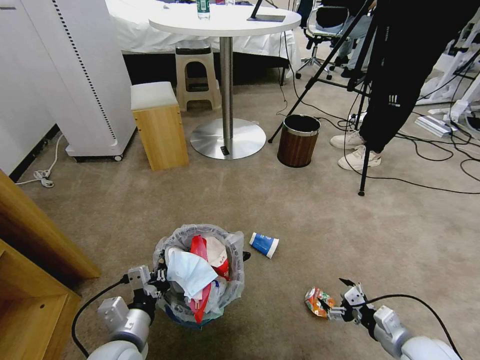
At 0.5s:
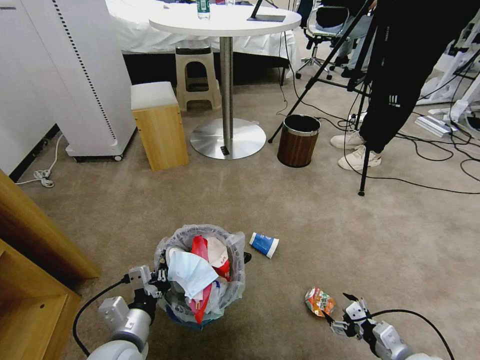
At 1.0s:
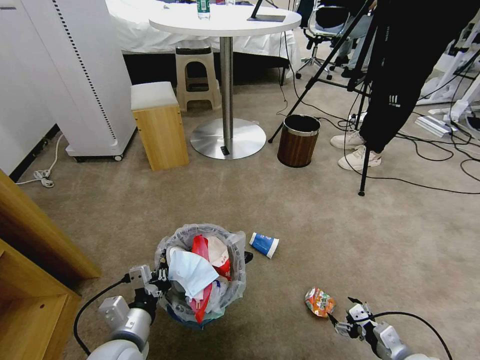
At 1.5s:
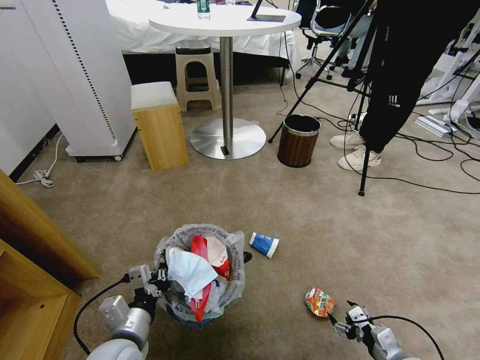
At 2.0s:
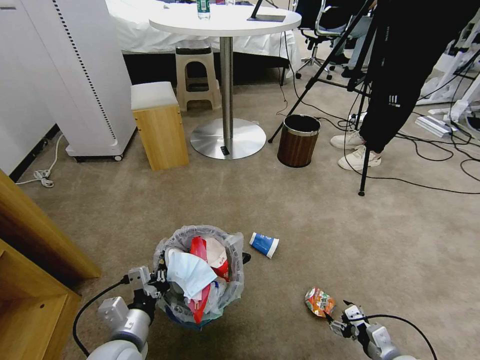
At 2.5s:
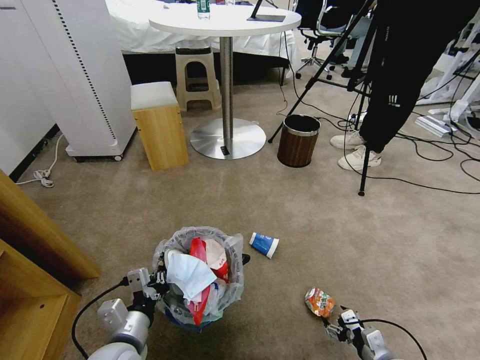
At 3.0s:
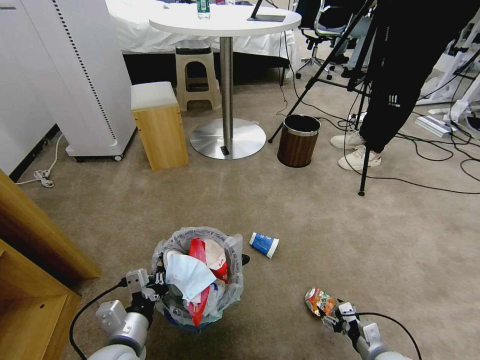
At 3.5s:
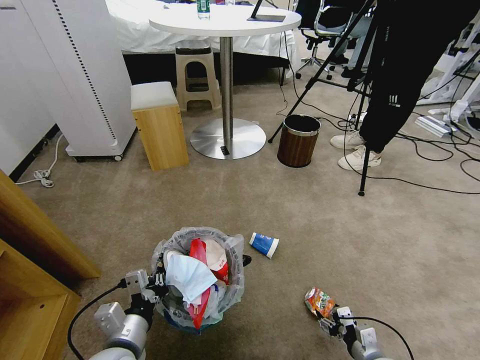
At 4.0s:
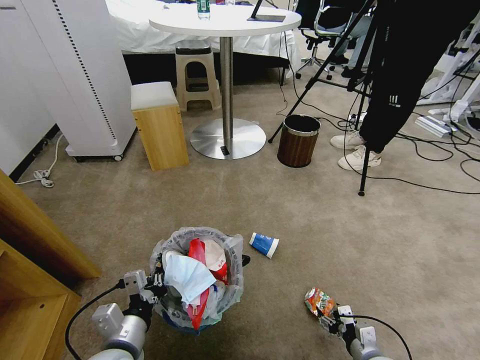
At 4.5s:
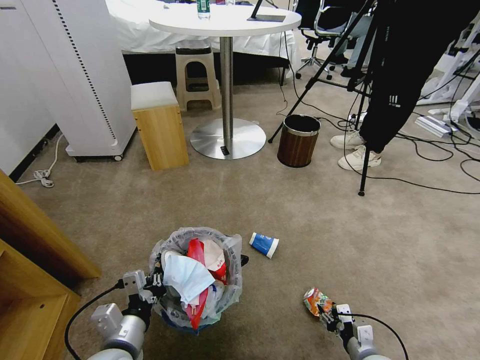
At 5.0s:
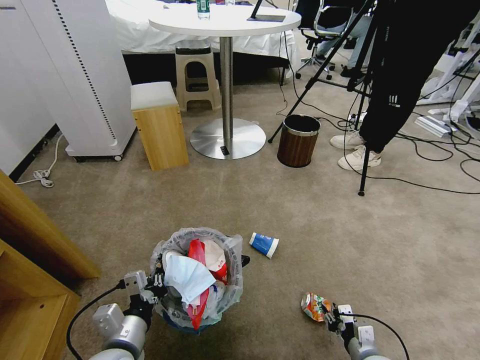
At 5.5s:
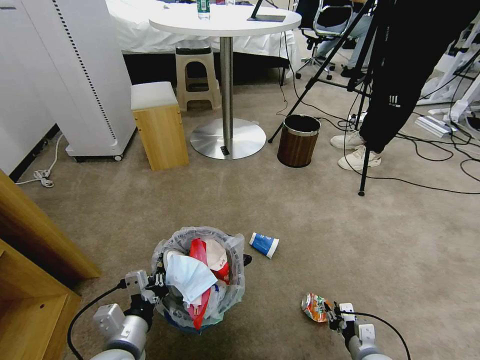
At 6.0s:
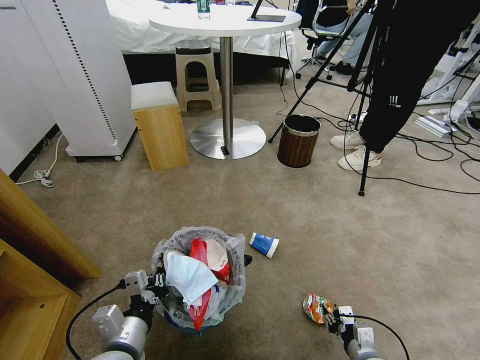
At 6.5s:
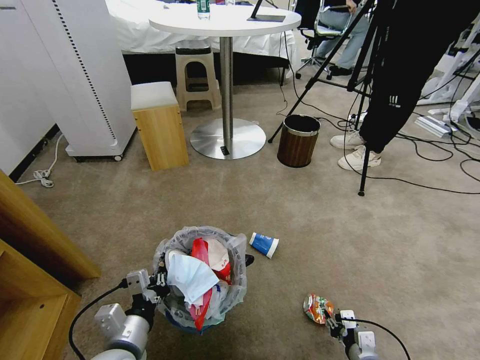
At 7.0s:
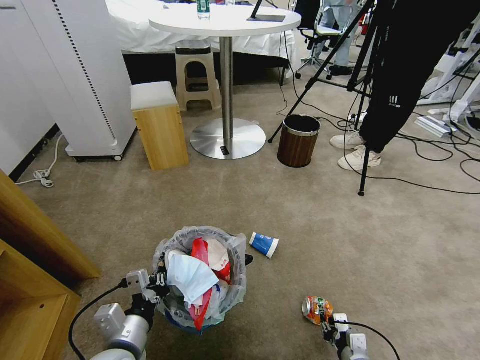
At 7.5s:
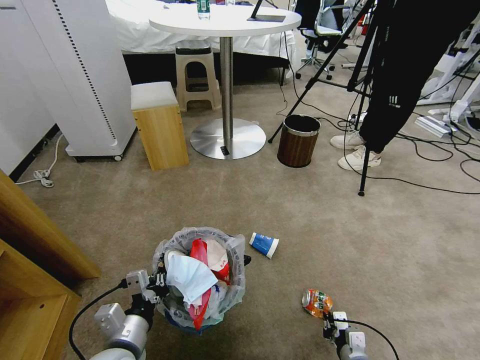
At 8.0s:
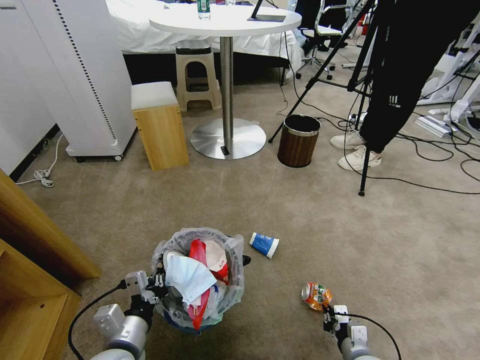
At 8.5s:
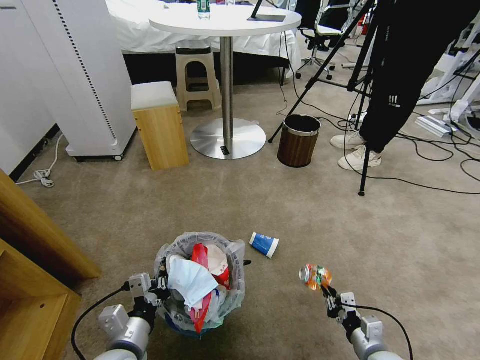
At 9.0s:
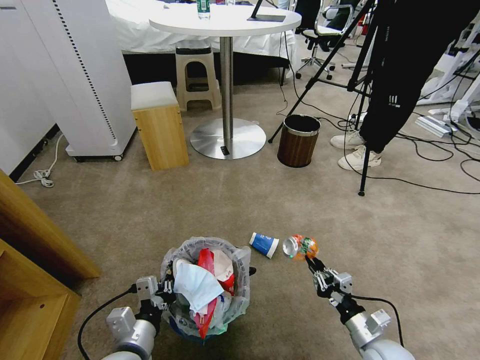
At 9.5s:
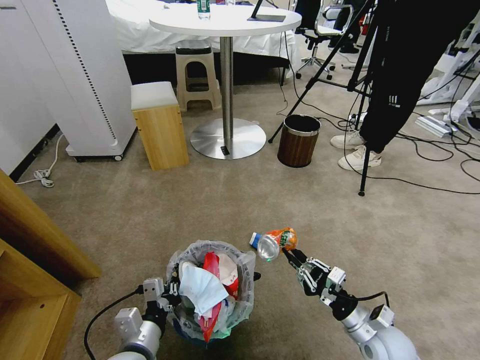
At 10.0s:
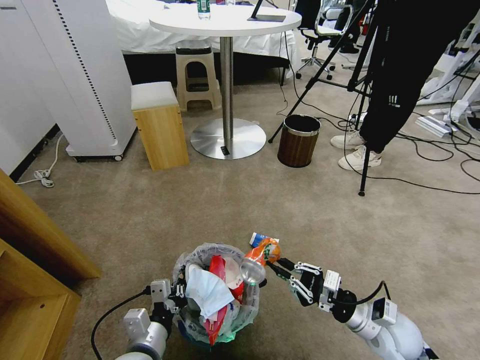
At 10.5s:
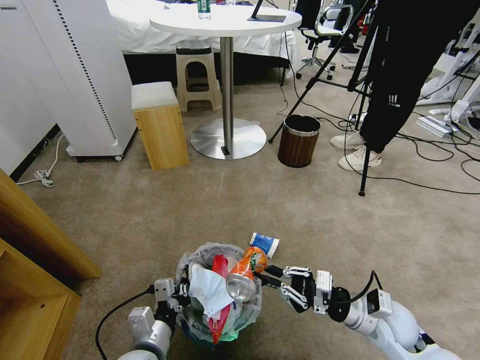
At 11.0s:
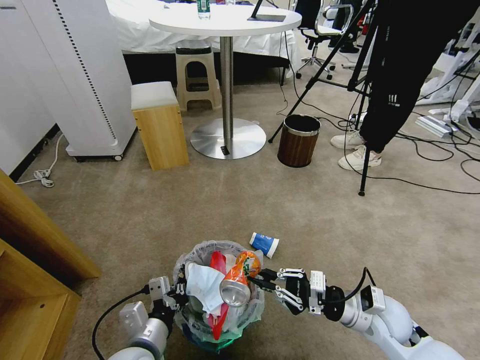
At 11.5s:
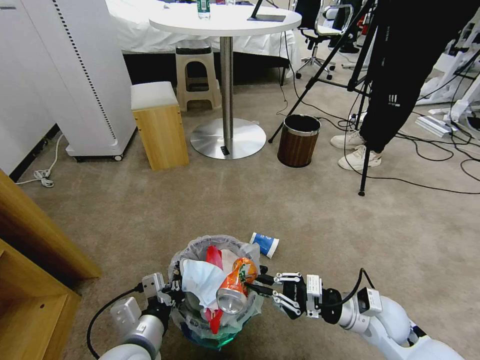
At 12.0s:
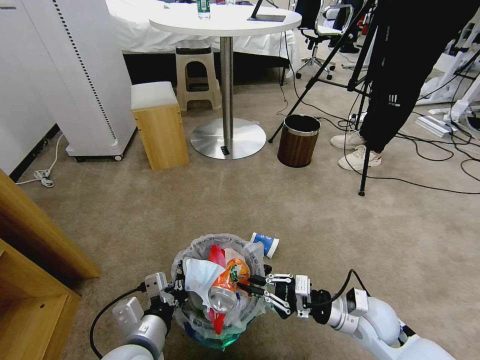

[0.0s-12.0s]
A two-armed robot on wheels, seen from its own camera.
Task of the whole recording: Pick up the trash bin and place the garbage on the floor into it.
0.0s to 2.0s: The right gripper shifts approximately 10 cm downward.
2.0s to 4.0s: The right gripper ends up about 5 cm from where it was.
4.0s to 8.0s: The grippers move only a little.
8.0s to 10.0s: The right gripper heads upward and forward, covering approximately 15 cm.
10.0s to 12.0s: The left gripper moves upward, roughly 5 cm.

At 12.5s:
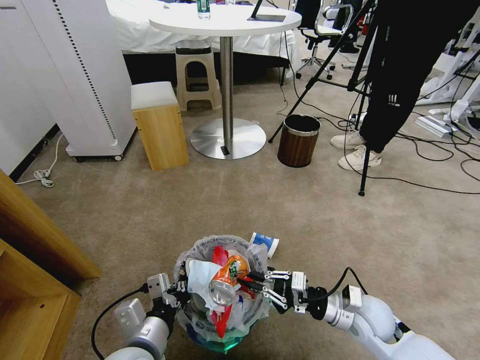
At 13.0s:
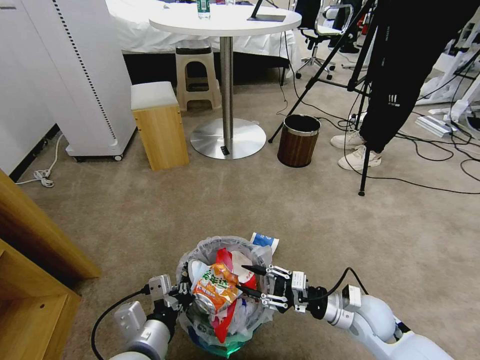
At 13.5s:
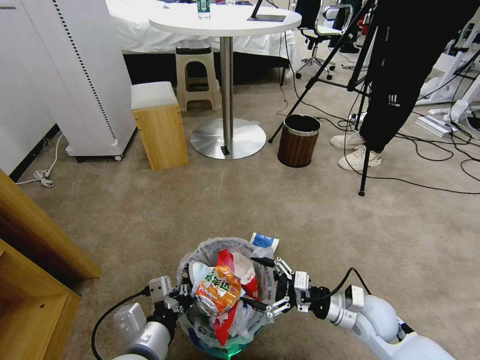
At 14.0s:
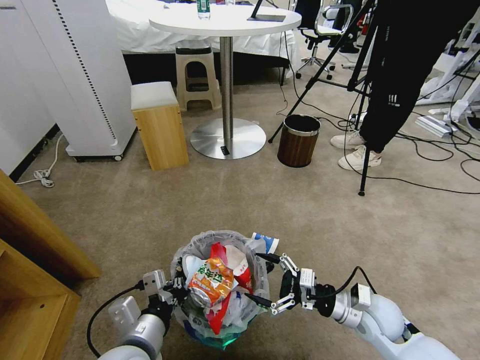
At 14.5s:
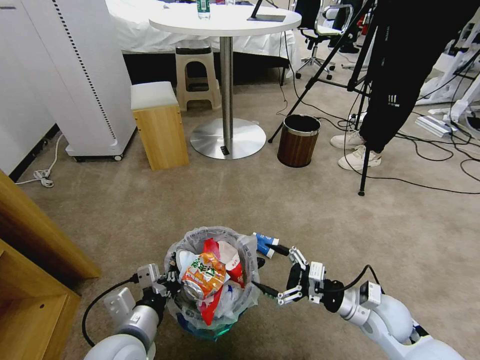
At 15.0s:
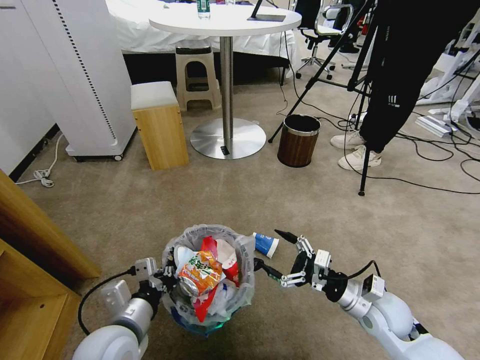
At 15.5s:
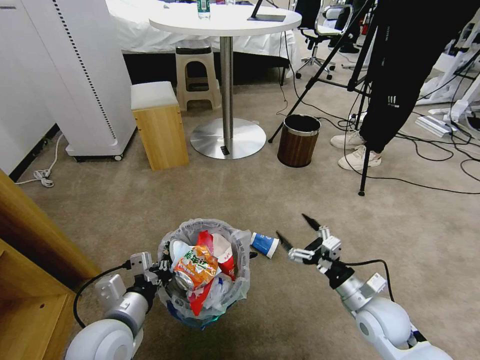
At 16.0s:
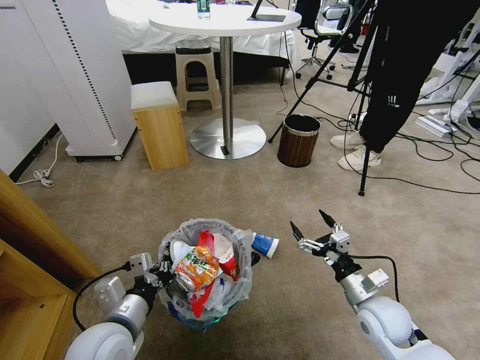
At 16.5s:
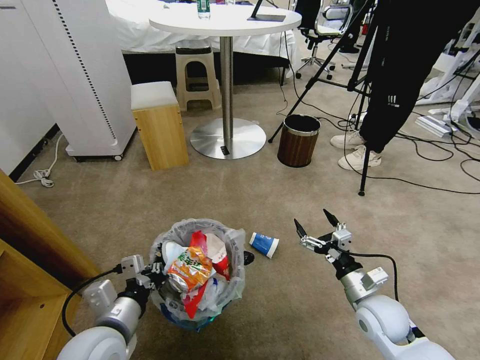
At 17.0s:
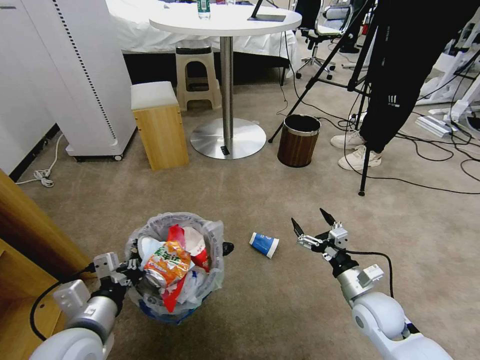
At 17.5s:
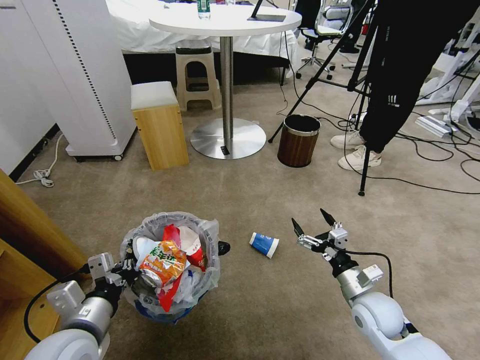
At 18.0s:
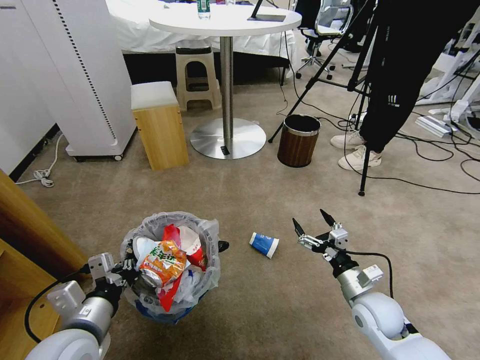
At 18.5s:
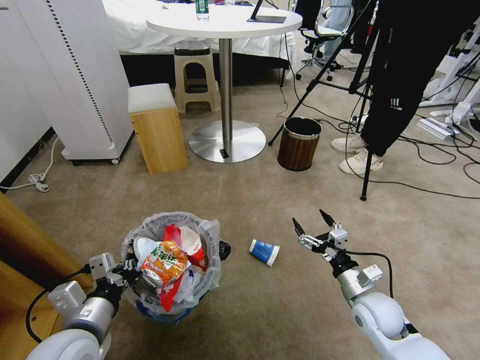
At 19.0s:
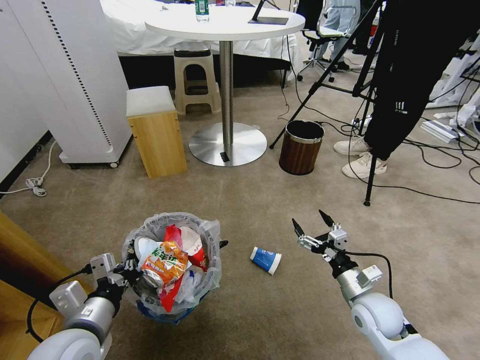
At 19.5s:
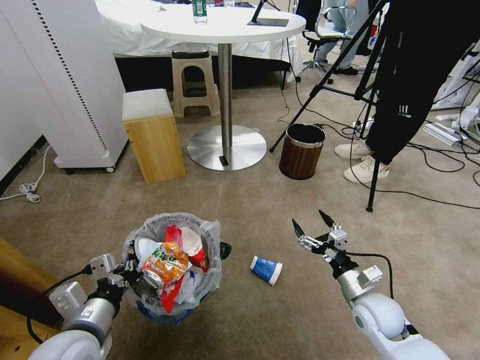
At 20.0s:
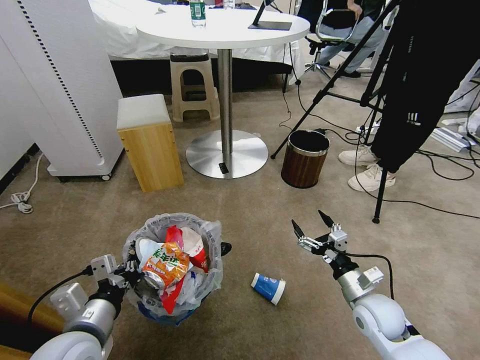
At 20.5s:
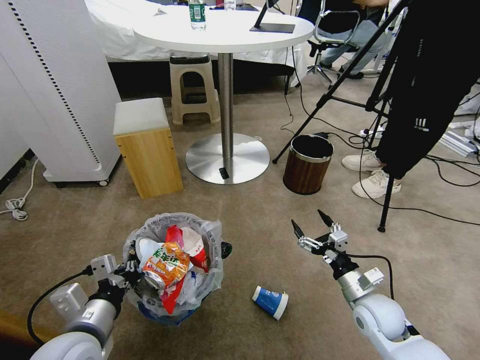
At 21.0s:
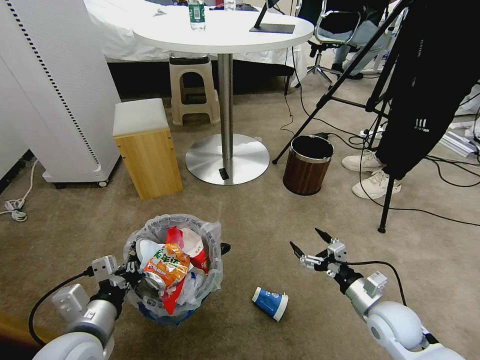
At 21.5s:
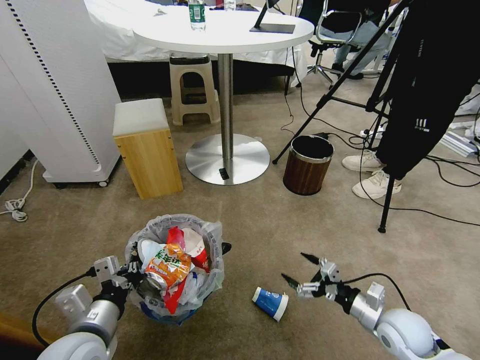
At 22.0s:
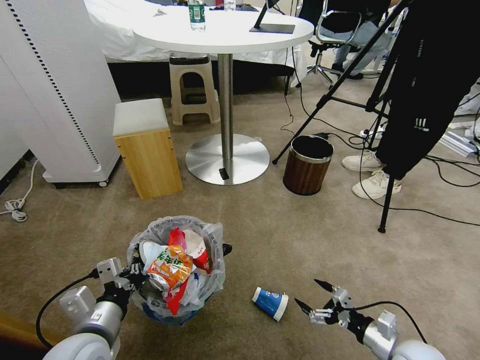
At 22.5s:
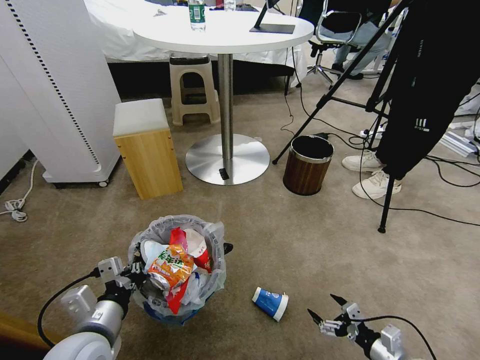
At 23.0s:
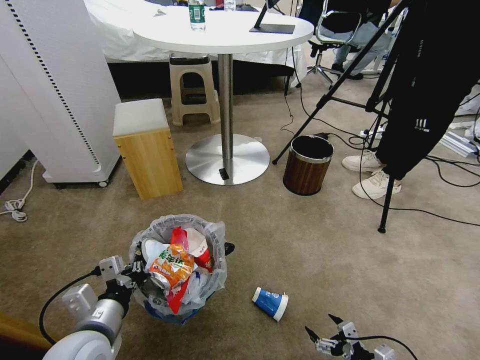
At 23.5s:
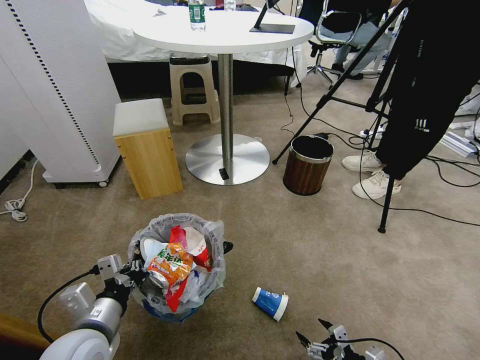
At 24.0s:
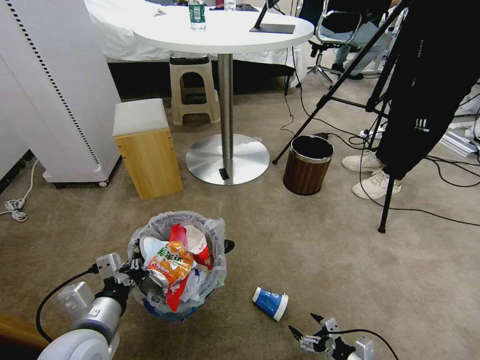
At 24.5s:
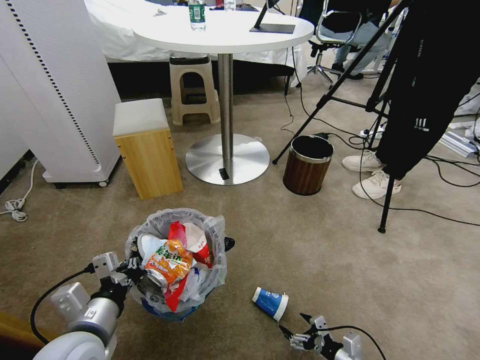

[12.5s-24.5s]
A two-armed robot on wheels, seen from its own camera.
Task of the whole recording: Pick up the trash bin and place the garbage on the floor into it.
12.5s to 14.5s: The right gripper opens up.
20.5s to 22.5s: The right gripper shifts roughly 15 cm backward, to the right and downward.
22.5s to 24.5s: The right gripper shifts approximately 10 cm downward and to the left.

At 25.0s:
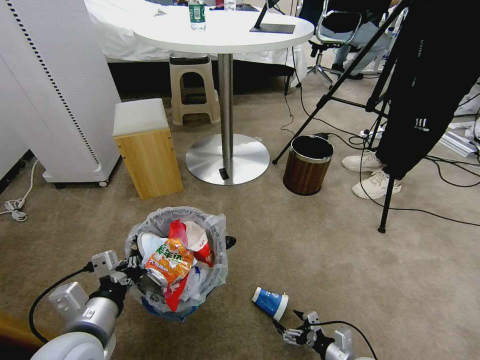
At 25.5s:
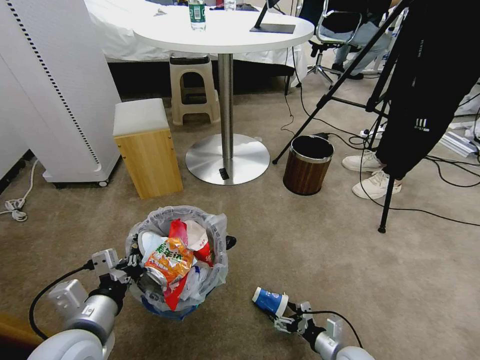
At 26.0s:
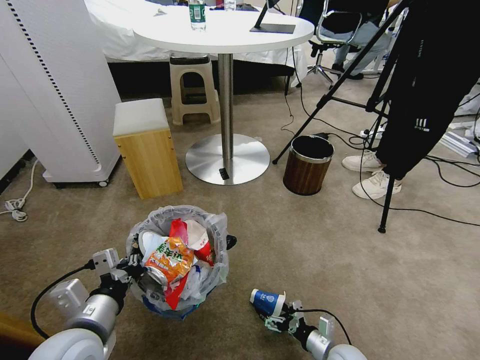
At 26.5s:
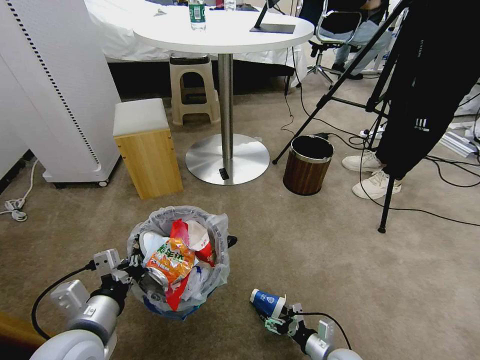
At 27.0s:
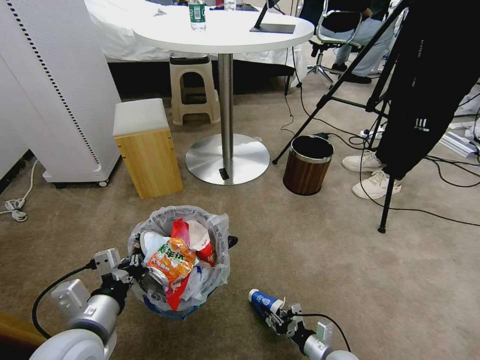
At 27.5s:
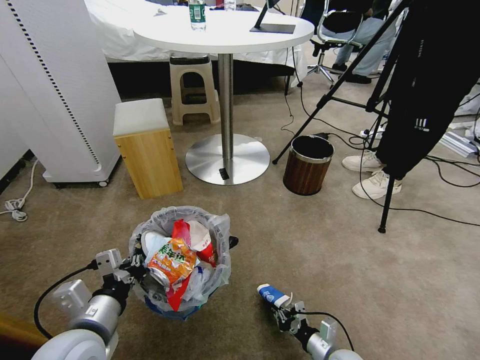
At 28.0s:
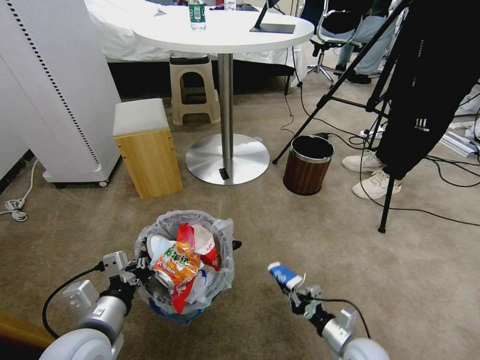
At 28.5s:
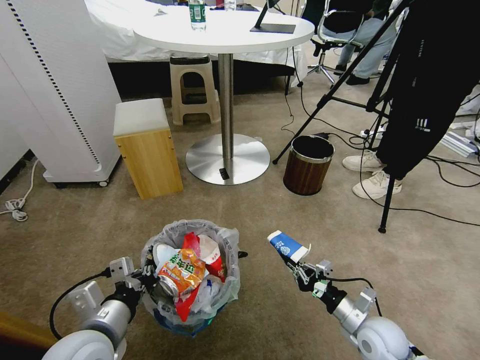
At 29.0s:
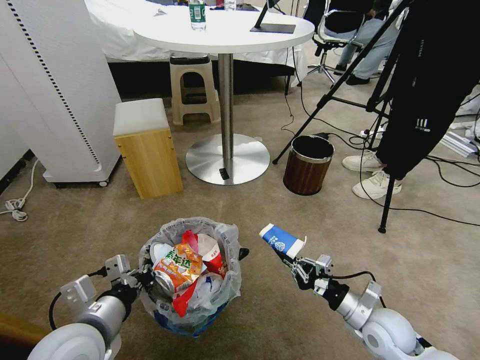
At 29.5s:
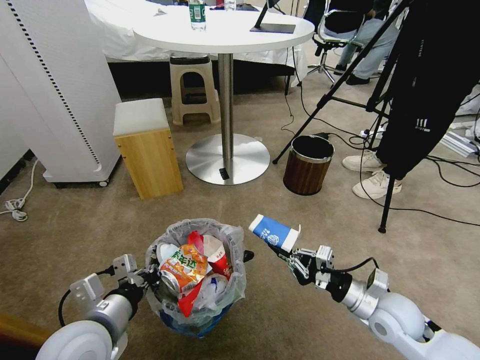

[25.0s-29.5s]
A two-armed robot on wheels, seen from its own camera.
Task of the whole recording: Pick up the trash bin and place the garbage on the floor into it.
25.0s to 27.0s: The right gripper heads to the left, covering roughly 5 cm, and closes up.
27.0s to 29.5s: The right gripper moves upward, roughly 20 cm.
